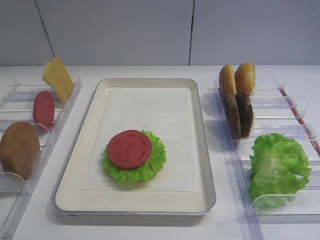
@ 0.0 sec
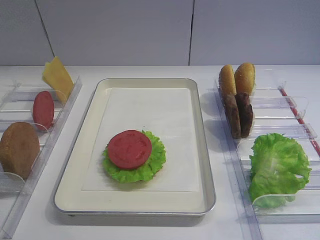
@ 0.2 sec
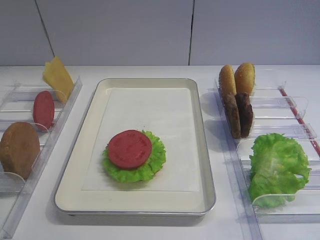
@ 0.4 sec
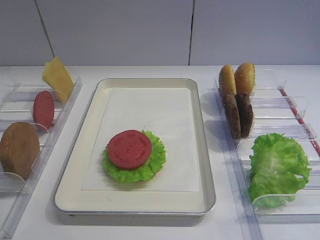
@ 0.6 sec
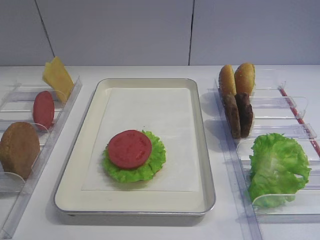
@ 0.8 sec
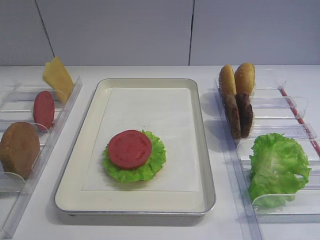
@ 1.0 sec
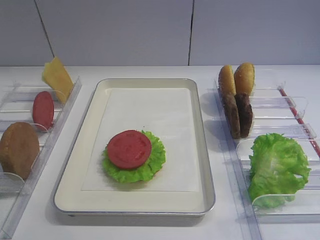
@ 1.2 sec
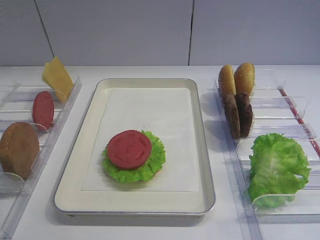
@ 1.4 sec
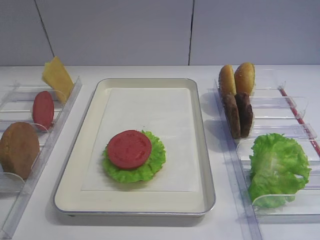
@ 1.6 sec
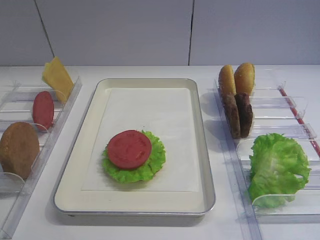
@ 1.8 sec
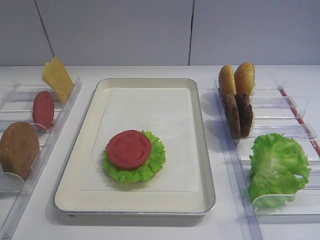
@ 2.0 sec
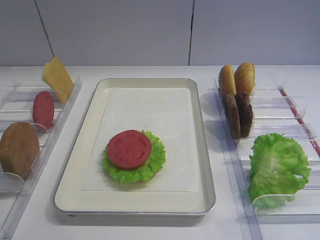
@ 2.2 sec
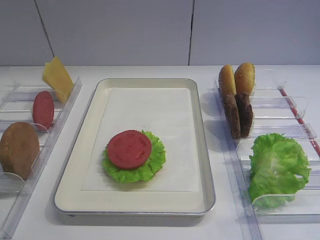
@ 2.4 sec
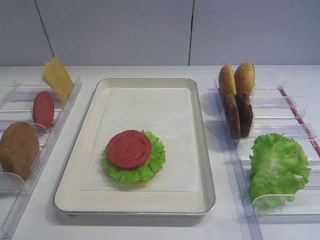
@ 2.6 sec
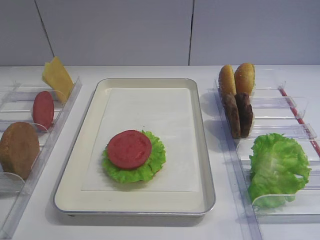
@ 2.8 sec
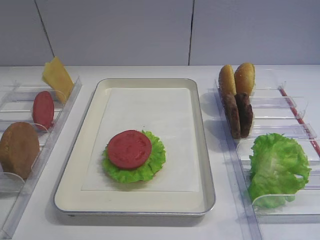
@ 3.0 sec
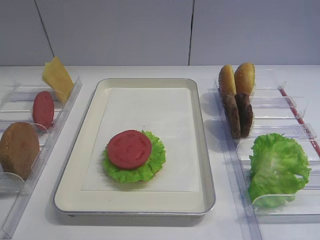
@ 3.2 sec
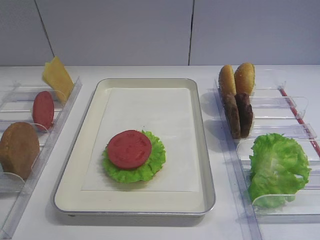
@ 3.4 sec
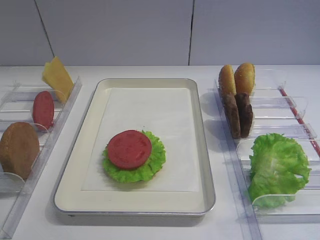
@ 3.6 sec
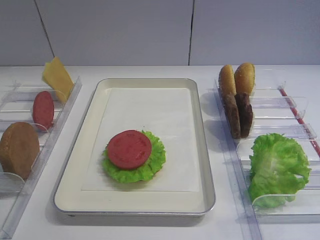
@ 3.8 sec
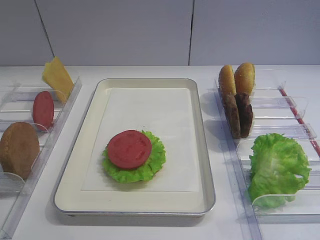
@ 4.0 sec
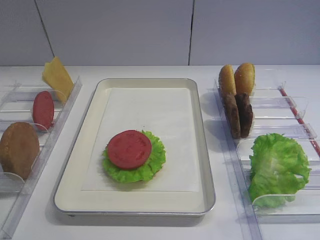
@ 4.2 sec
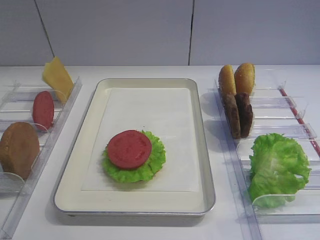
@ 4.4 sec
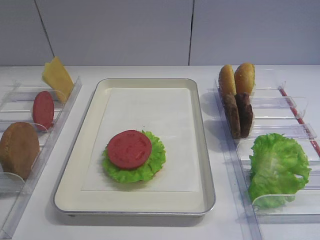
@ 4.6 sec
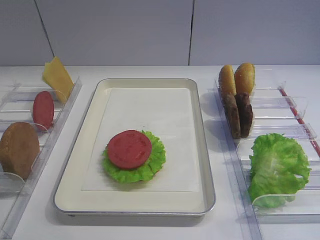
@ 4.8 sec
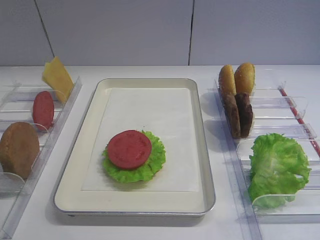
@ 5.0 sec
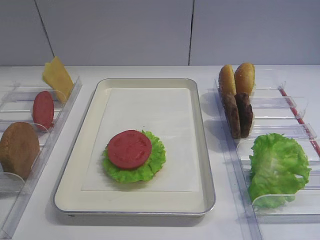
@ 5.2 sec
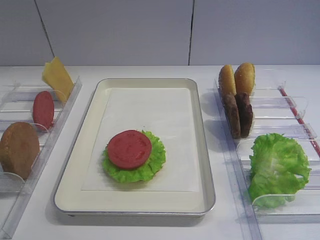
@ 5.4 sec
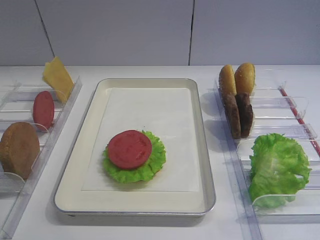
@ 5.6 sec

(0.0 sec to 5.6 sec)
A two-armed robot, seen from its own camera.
1.4 sec - 5.6 sec: The two grippers keep their place.

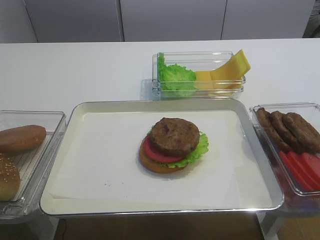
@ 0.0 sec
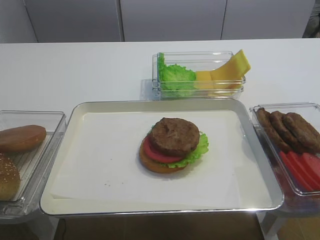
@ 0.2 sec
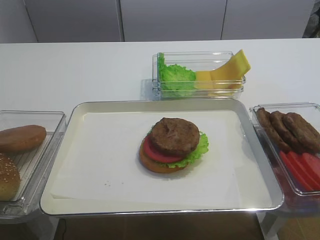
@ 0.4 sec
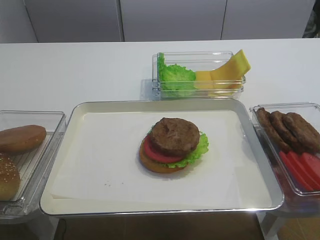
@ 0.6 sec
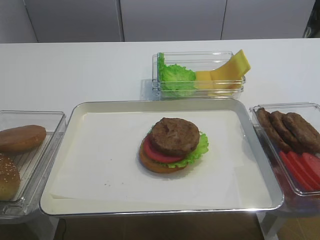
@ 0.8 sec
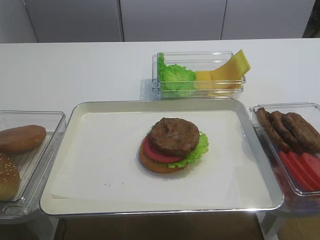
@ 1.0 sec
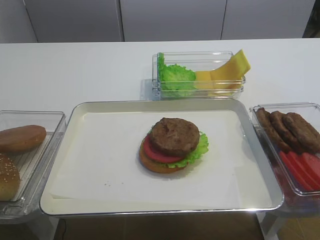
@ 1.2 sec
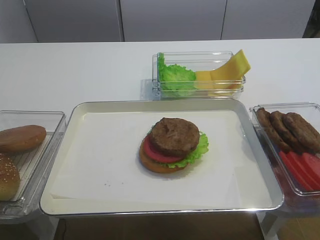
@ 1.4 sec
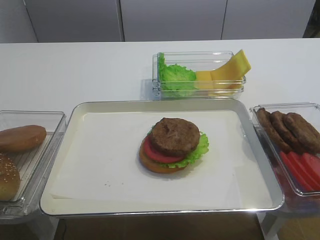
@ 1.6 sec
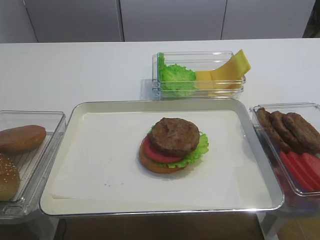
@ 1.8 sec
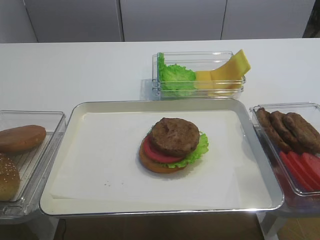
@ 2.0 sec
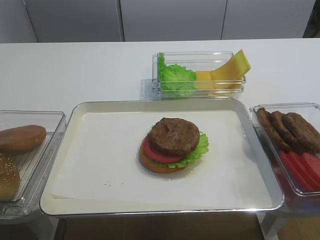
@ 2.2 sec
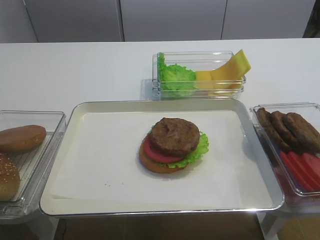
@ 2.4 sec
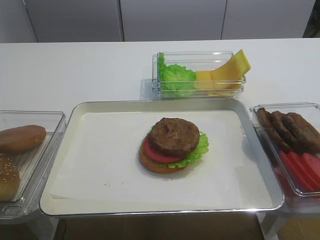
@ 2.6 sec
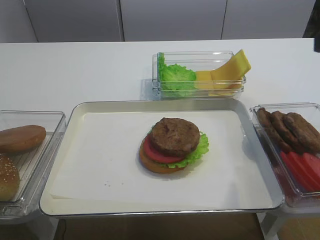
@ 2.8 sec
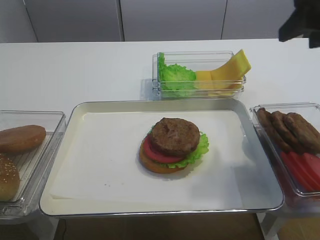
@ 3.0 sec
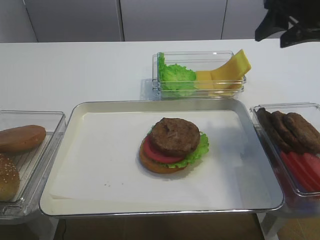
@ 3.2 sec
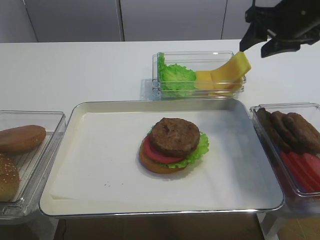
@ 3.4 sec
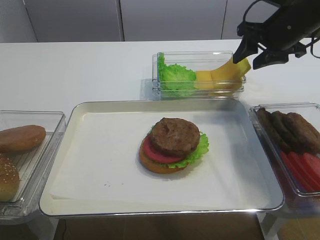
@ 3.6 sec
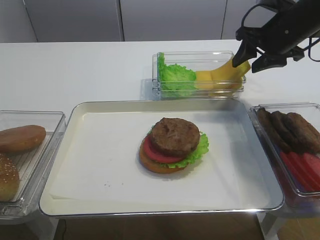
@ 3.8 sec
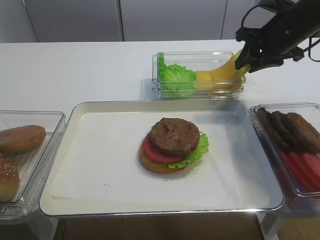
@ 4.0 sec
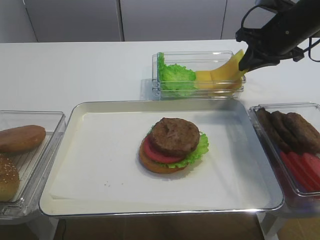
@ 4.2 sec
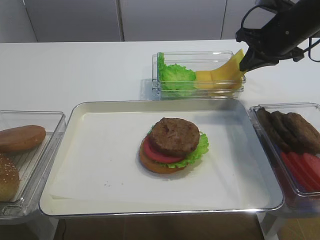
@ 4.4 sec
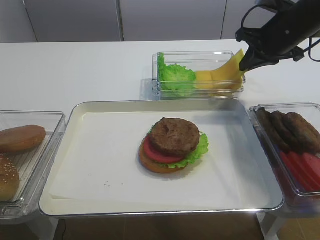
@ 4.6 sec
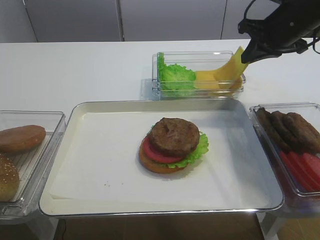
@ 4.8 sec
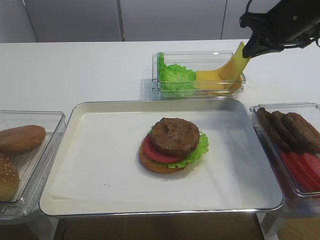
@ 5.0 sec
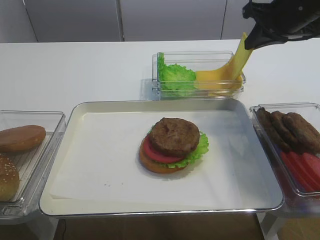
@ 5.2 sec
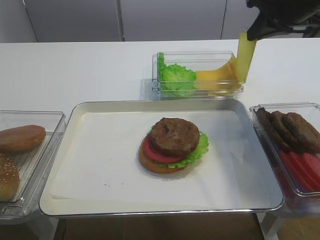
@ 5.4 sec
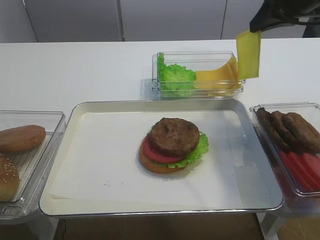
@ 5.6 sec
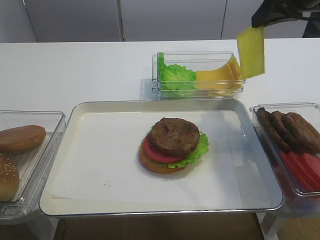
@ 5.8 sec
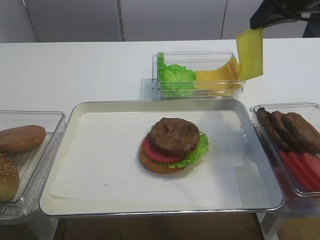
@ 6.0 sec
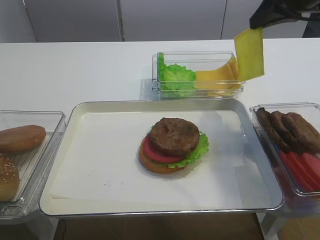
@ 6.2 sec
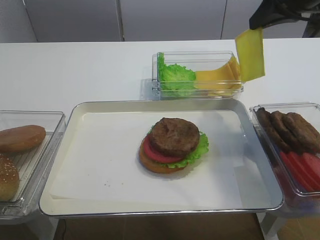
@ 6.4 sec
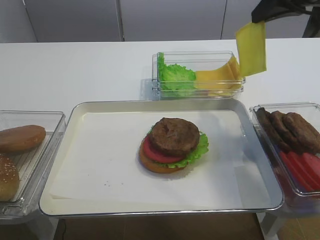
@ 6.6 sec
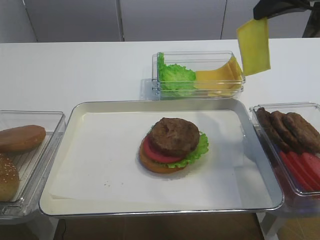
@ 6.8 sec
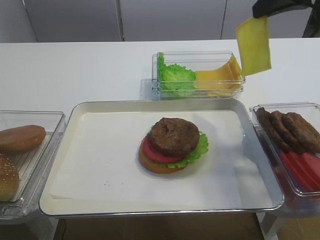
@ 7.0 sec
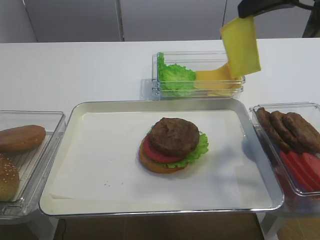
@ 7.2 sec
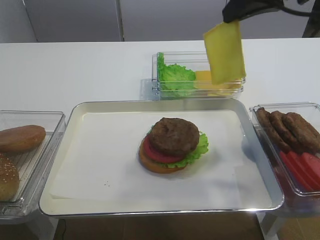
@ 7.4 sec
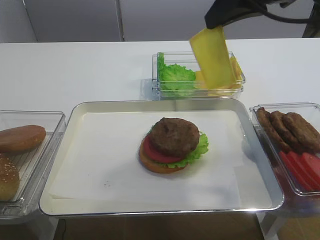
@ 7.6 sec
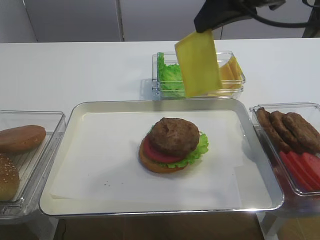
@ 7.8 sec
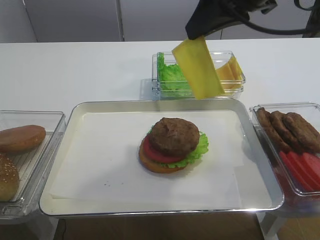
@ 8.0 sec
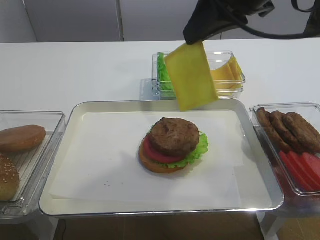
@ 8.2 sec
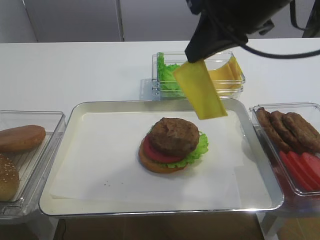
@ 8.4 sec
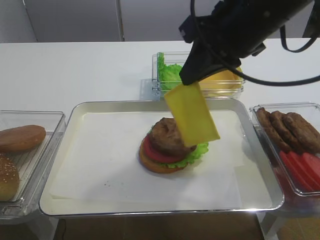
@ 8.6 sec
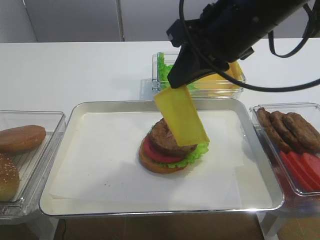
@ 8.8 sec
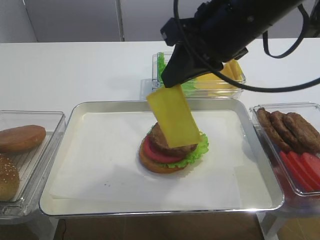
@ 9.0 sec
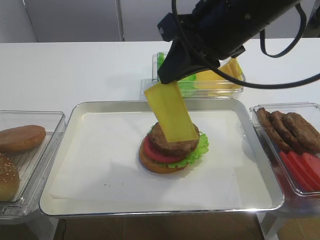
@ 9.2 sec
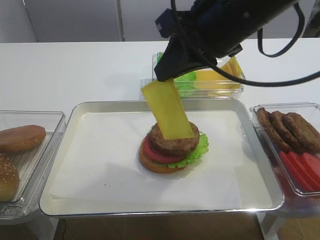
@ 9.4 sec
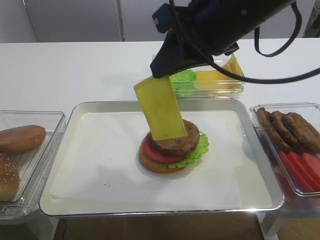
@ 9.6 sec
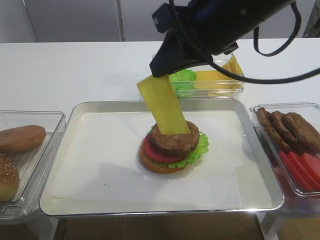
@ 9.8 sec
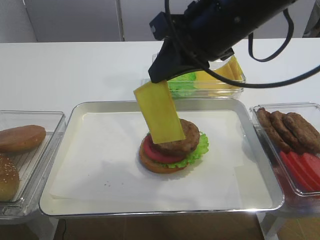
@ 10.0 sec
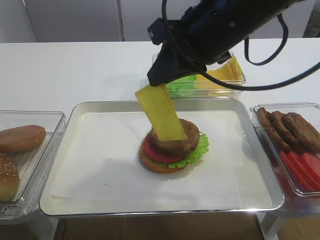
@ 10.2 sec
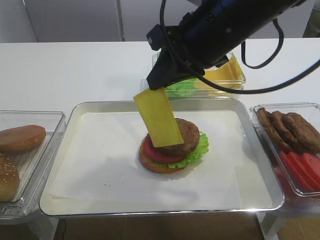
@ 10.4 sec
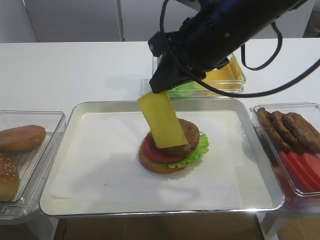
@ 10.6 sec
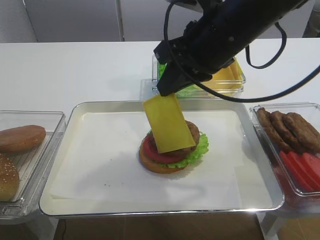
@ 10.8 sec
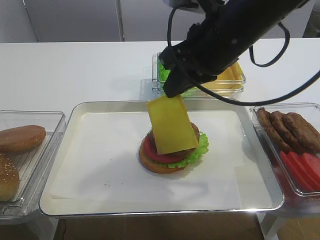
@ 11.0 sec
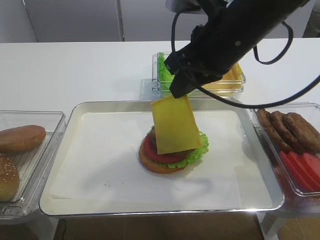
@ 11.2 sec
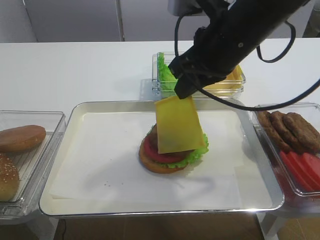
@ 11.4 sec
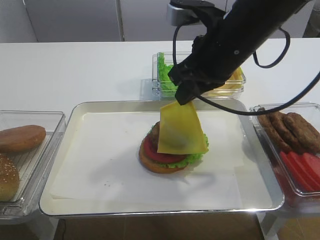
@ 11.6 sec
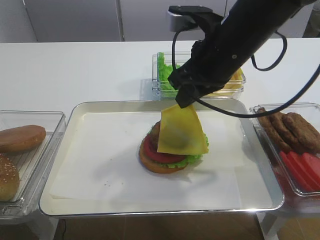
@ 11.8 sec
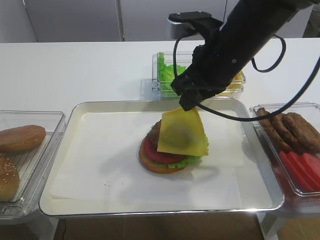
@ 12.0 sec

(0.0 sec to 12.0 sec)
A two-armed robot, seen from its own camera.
Step, 0.0 sec - 4.8 sec: Pick up the cheese slice with the right gripper.
1.6 sec - 3.0 sec: The right gripper moves forward, approximately 30 cm.
3.0 sec - 4.4 sec: The right gripper travels forward and downward by about 15 cm, and closes up.
4.4 sec - 6.0 sec: The right gripper moves upward, roughly 10 cm.
6.0 sec - 7.6 sec: The right gripper goes roughly 10 cm to the left and backward.
7.6 sec - 9.0 sec: The right gripper heads to the left, covering about 5 cm.
9.0 sec - 10.4 sec: The grippers stay close to where they were, moving slightly.
10.4 sec - 12.0 sec: The right gripper moves roughly 5 cm.

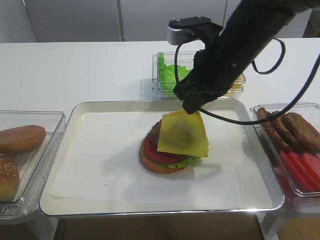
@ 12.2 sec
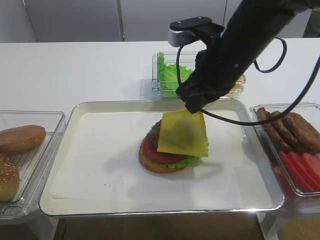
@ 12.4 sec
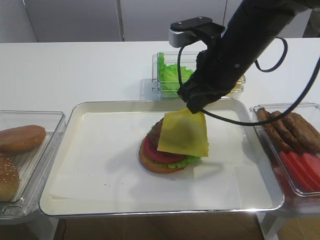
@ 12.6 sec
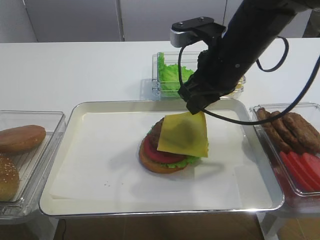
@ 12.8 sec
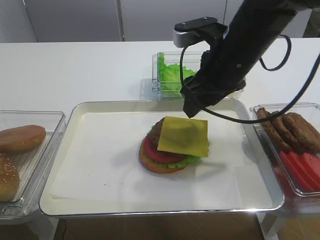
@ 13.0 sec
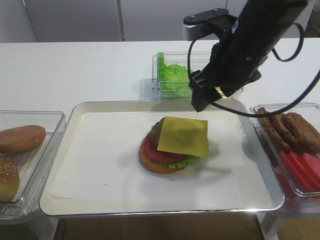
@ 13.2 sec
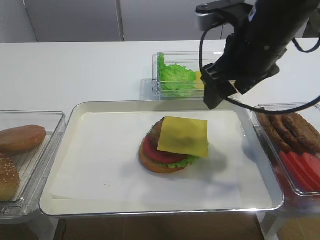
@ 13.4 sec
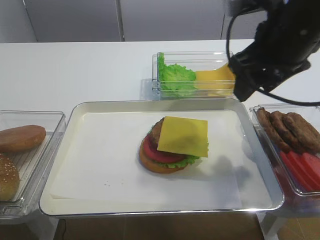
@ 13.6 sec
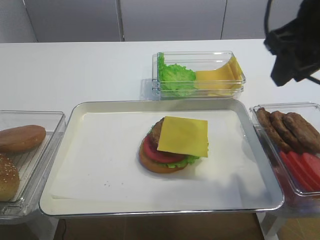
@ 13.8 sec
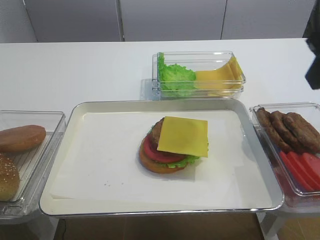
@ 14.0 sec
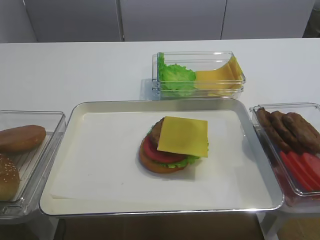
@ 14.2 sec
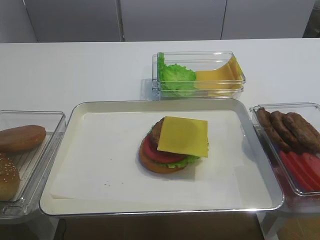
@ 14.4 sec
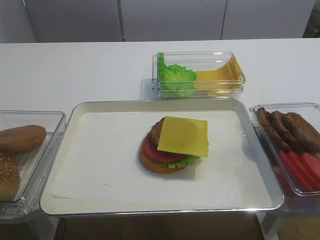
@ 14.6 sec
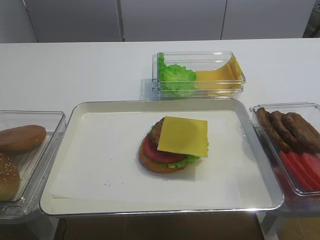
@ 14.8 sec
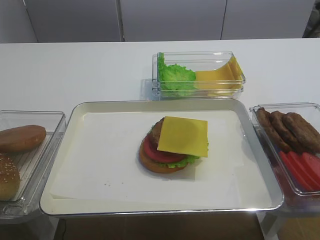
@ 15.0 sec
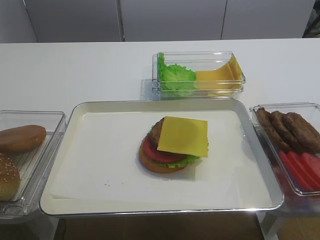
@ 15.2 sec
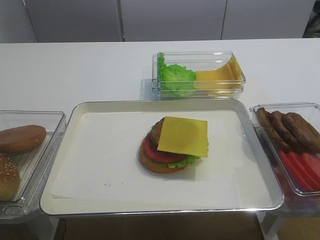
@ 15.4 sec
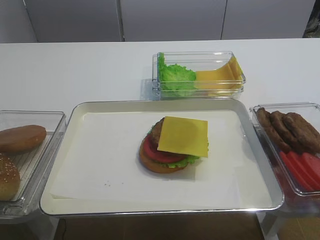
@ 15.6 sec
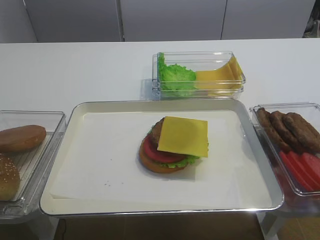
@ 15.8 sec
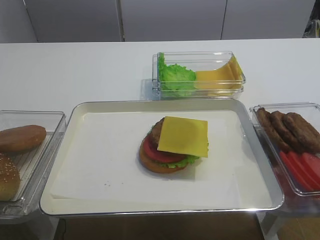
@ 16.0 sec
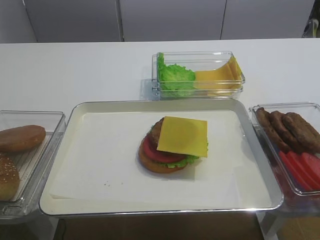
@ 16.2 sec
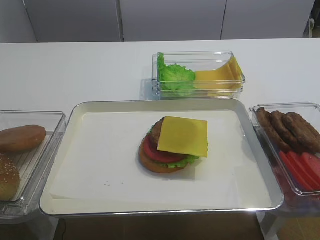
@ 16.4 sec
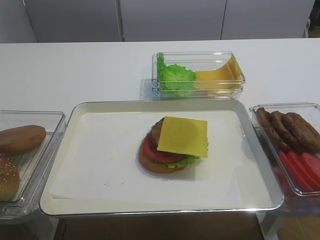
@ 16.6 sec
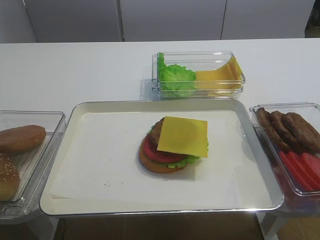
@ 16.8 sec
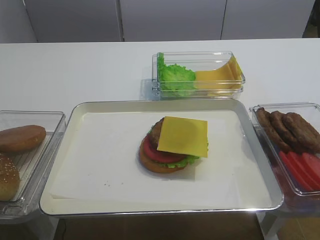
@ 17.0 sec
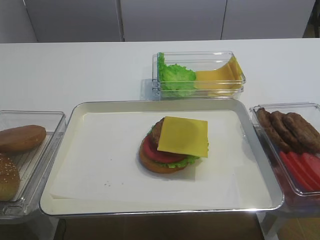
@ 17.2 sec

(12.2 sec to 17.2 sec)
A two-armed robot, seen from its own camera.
12.2 sec - 13.8 sec: The right gripper moves to the right, upward and backward, about 15 cm, and opens up.
13.8 sec - 15.6 sec: The right gripper moves backward, approximately 25 cm.
